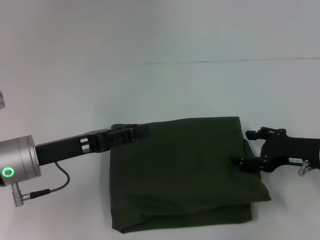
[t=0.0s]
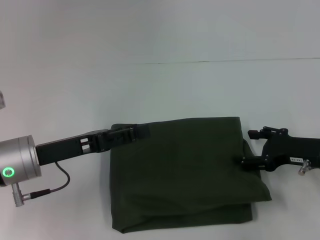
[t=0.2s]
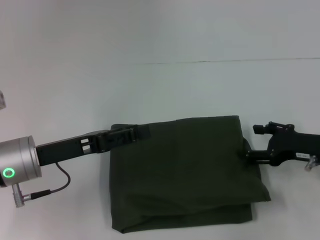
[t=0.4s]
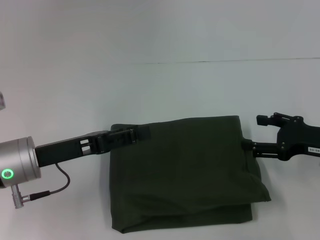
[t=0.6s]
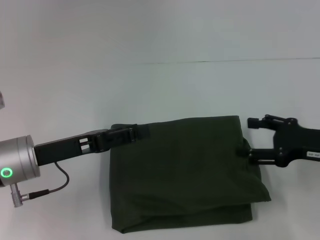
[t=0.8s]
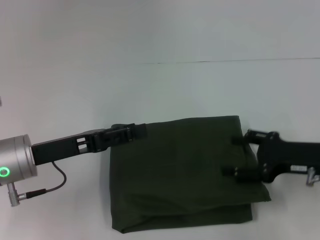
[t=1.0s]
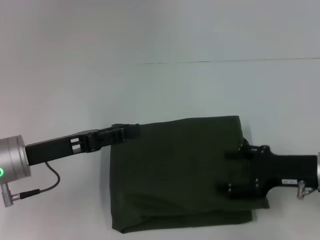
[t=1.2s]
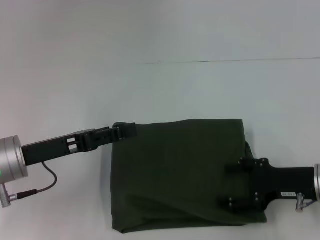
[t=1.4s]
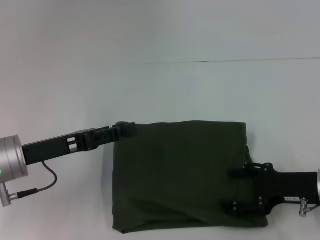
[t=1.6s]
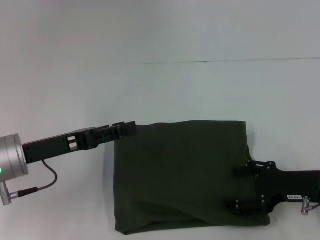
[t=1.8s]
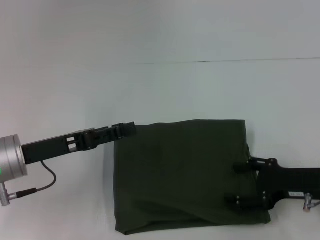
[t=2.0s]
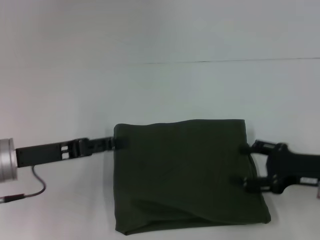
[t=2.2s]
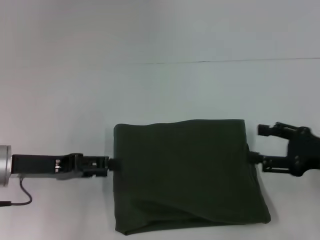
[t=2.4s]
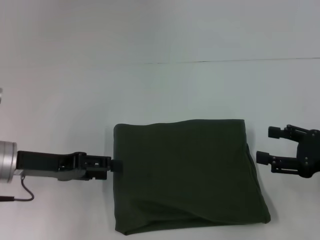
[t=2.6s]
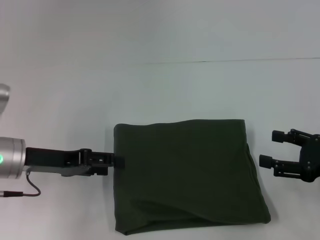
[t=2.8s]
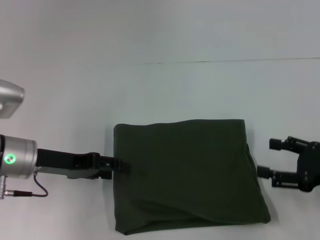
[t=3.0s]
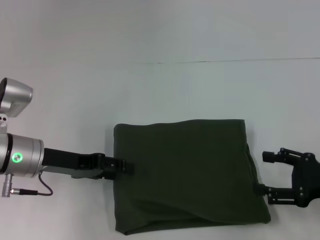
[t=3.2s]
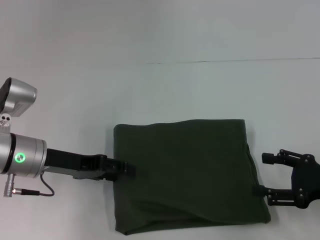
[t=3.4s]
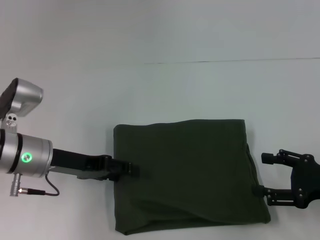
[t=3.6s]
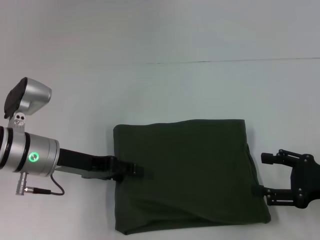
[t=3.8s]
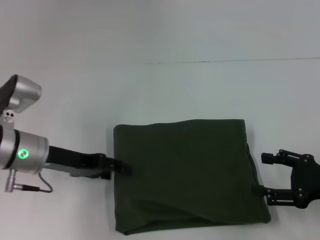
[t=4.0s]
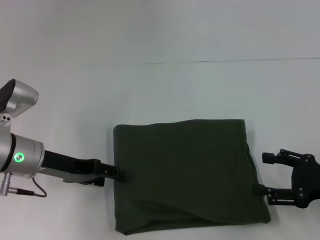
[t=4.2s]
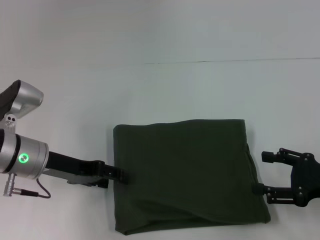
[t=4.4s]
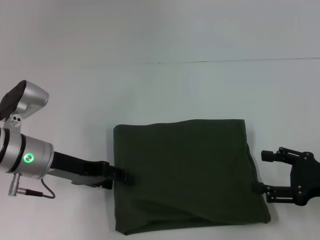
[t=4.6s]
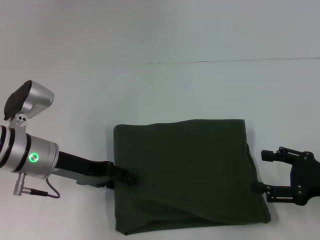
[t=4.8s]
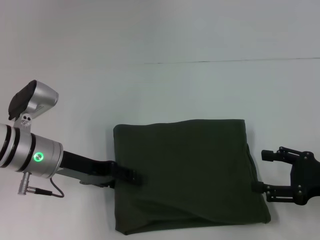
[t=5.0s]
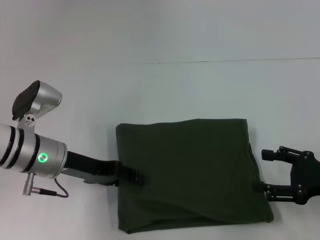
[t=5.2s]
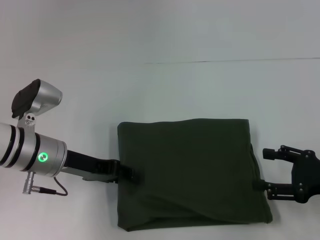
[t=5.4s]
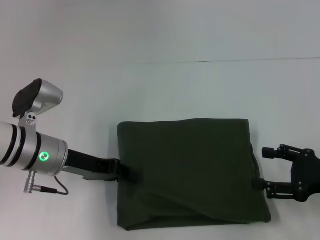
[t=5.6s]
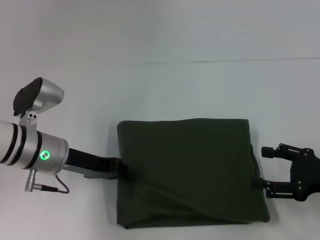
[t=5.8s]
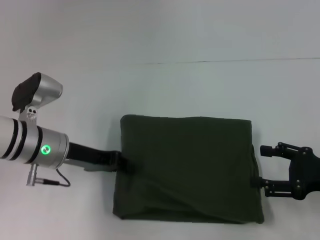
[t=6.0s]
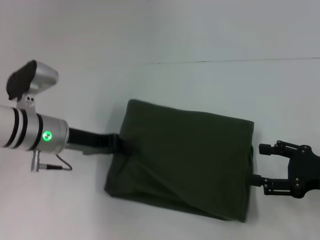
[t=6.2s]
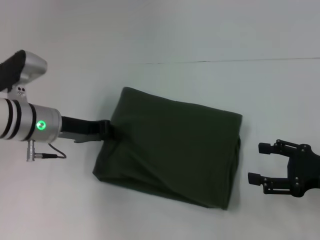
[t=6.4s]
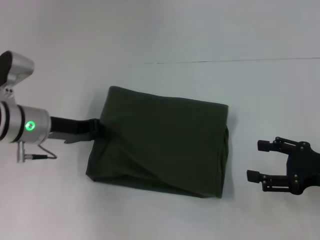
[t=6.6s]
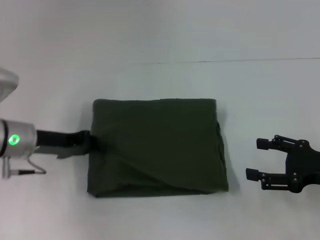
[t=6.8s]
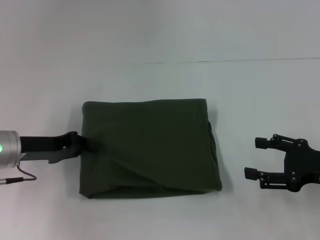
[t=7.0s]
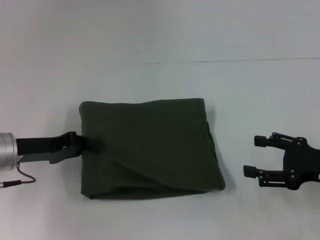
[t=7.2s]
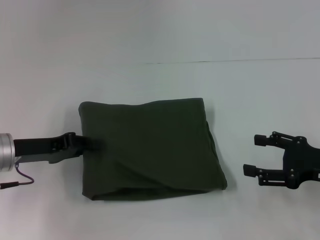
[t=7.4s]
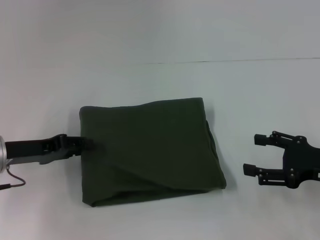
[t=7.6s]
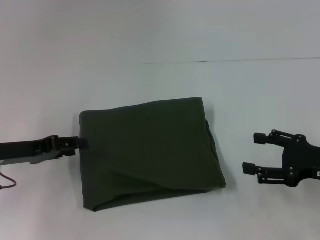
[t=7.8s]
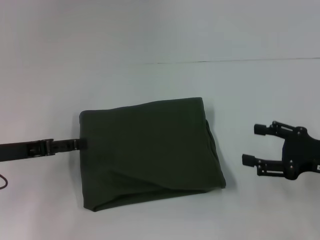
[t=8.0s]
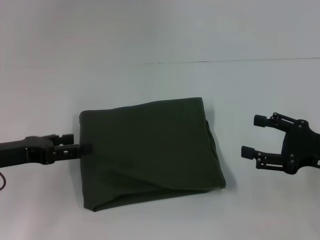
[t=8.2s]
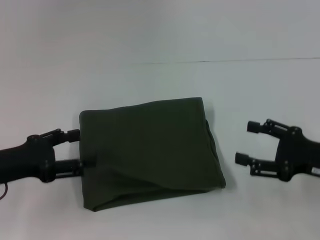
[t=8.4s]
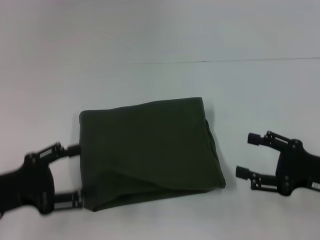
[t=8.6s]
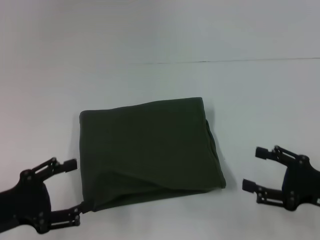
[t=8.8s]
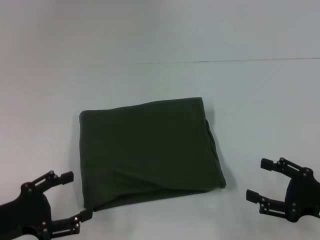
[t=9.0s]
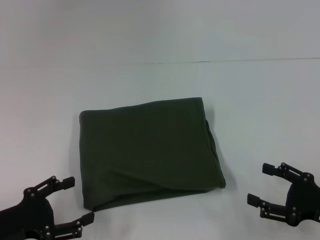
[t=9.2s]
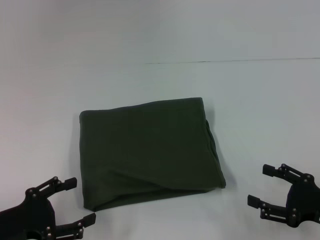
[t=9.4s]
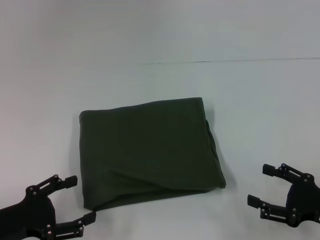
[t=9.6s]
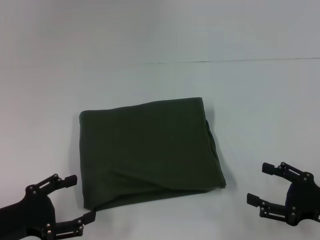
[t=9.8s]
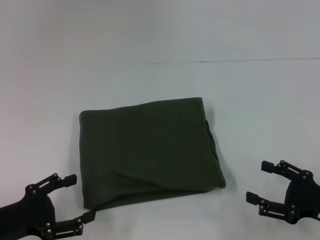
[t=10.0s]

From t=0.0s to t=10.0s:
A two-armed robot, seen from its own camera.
From t=0.0s to t=1.4s: The grippers stay close to where they were, moving slightly.
From t=1.4s to t=2.8s: The right gripper travels to the right by approximately 5 cm.
From t=2.8s to t=4.2s: The grippers make only small movements.
From t=4.2s to t=5.8s: The left gripper closes up.
From t=5.8s to t=7.2s: The left gripper shifts about 5 cm to the left.
From t=7.2s to t=8.6s: The left gripper heads backward, covering approximately 10 cm, and opens up.
From t=8.6s to t=10.0s: The left gripper moves roughly 5 cm. Meanwhile the right gripper shifts by some 5 cm.
